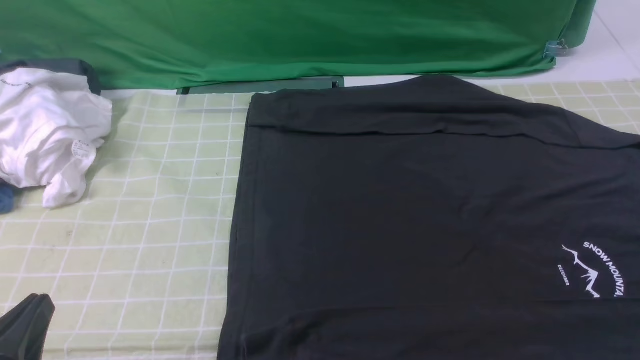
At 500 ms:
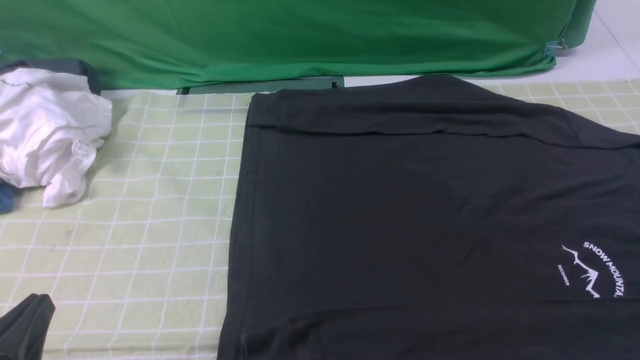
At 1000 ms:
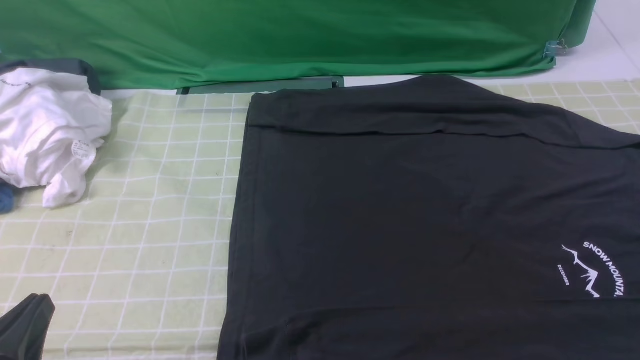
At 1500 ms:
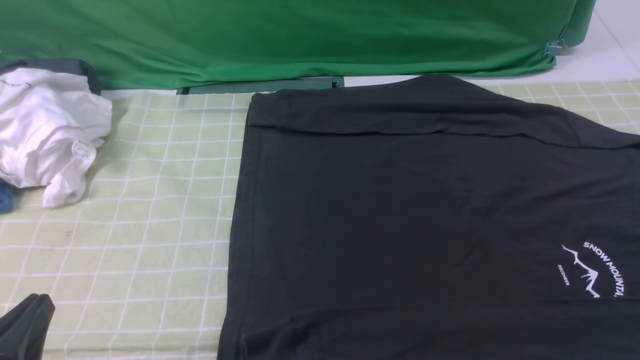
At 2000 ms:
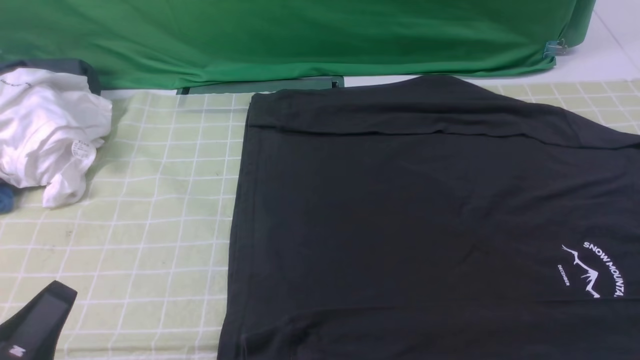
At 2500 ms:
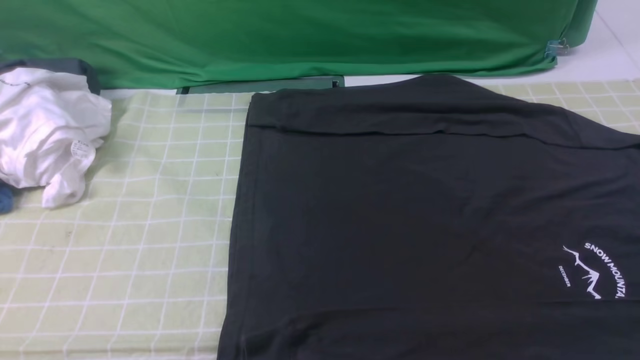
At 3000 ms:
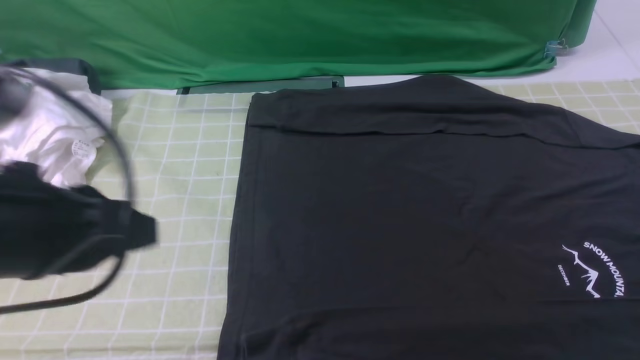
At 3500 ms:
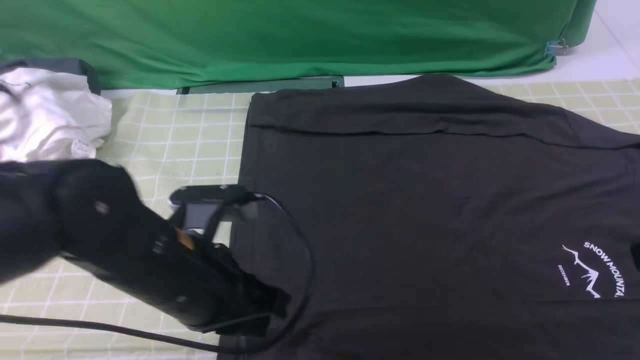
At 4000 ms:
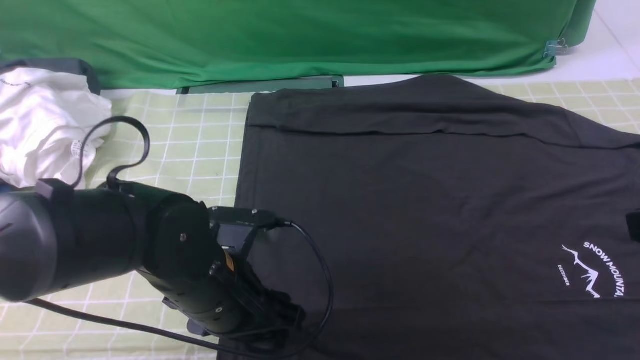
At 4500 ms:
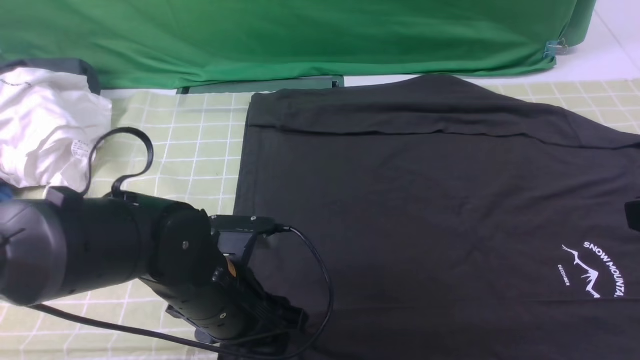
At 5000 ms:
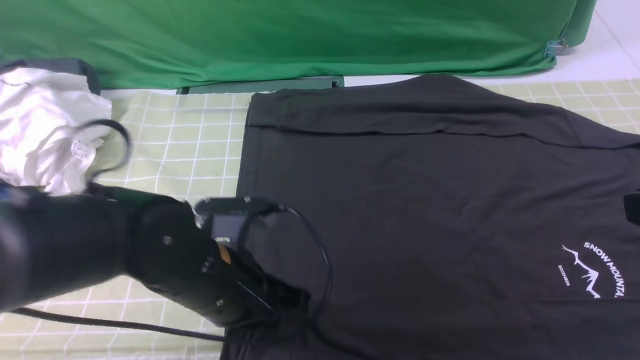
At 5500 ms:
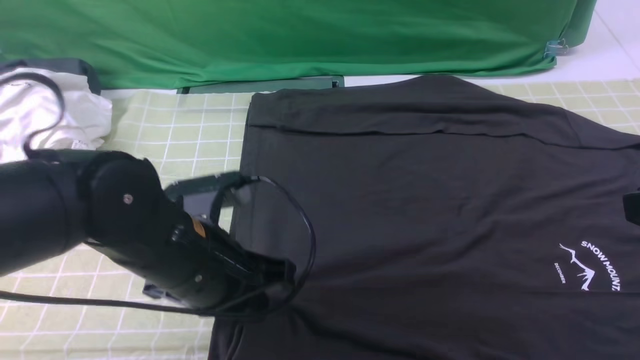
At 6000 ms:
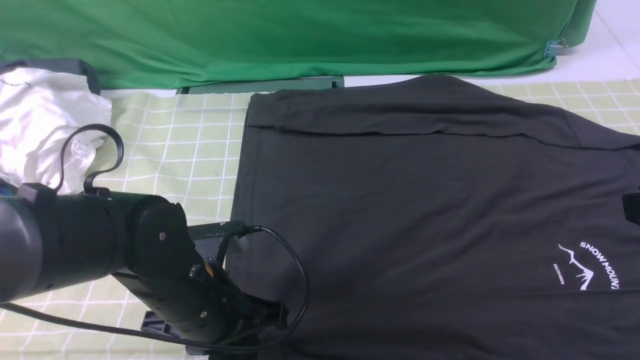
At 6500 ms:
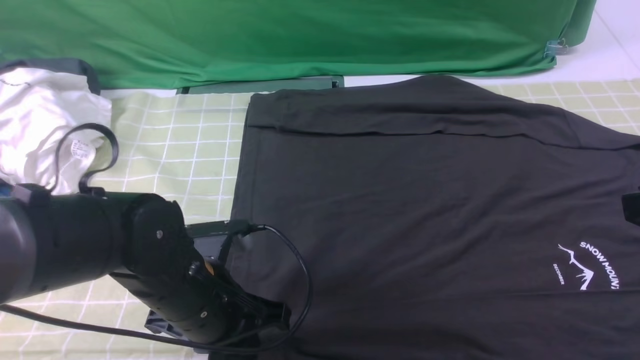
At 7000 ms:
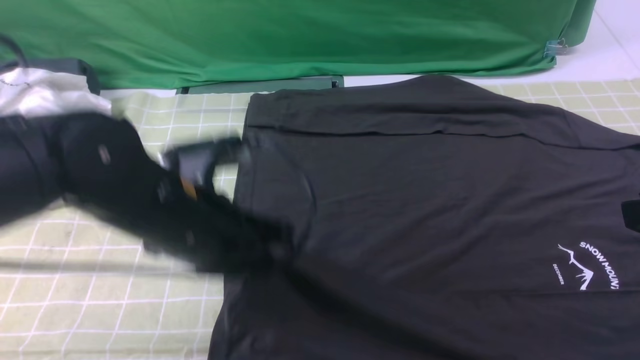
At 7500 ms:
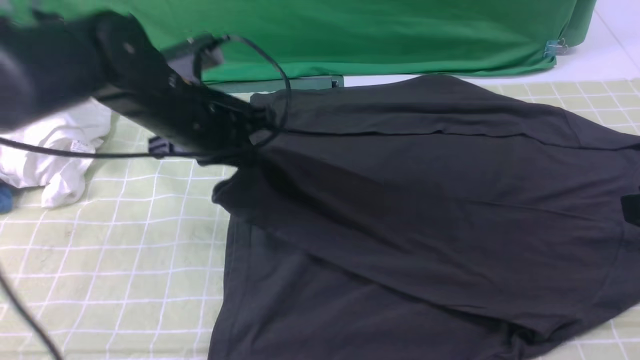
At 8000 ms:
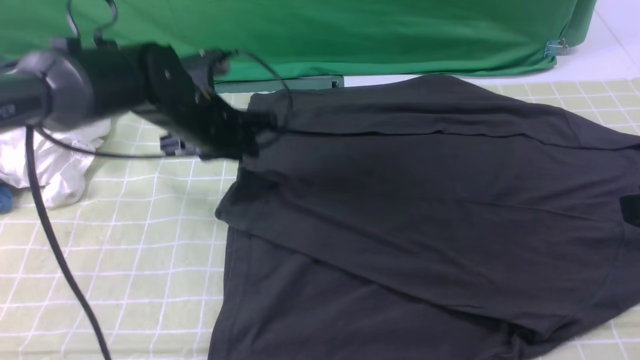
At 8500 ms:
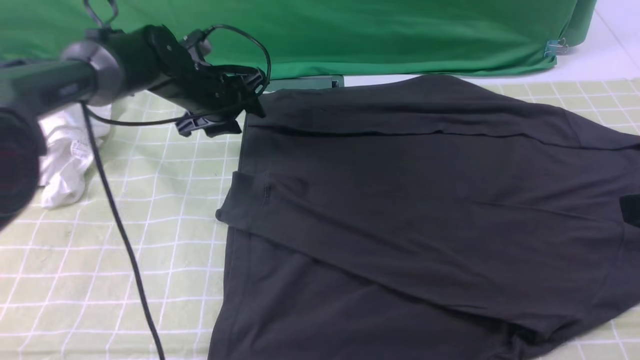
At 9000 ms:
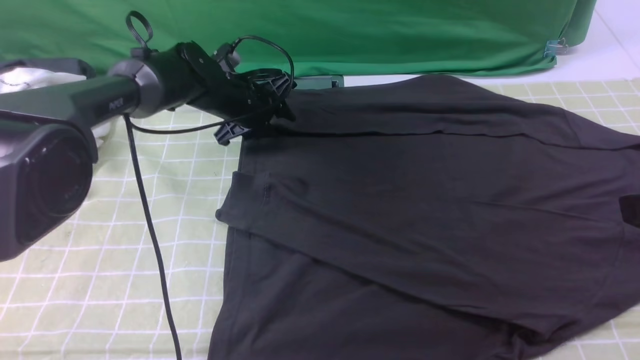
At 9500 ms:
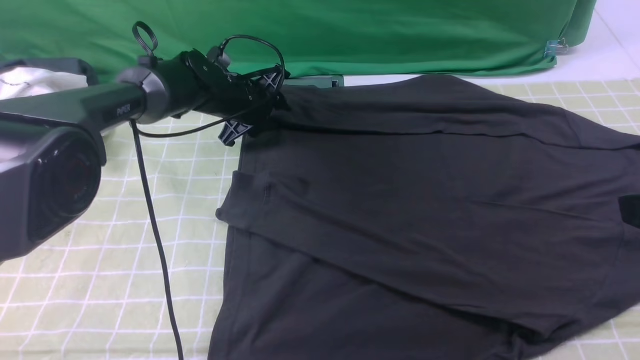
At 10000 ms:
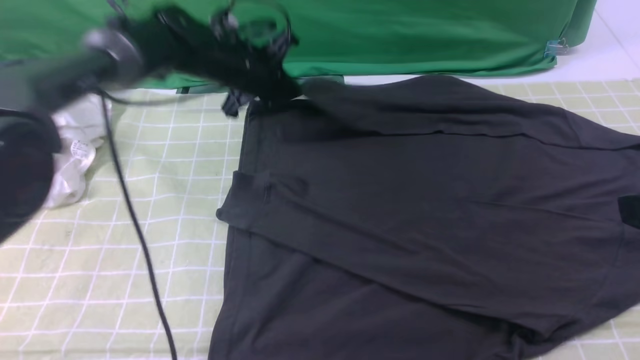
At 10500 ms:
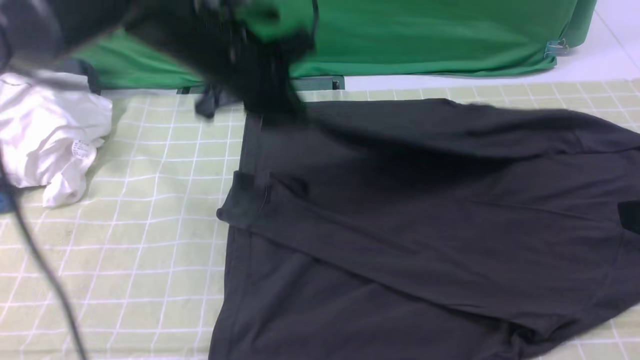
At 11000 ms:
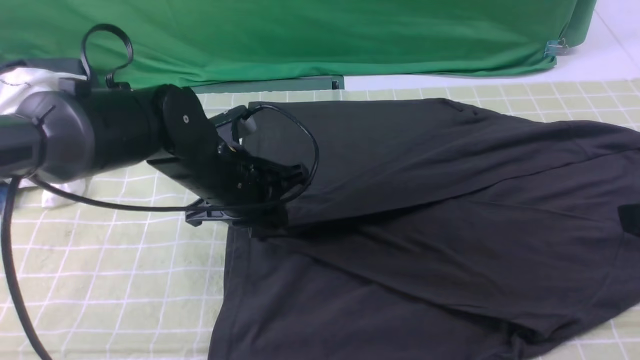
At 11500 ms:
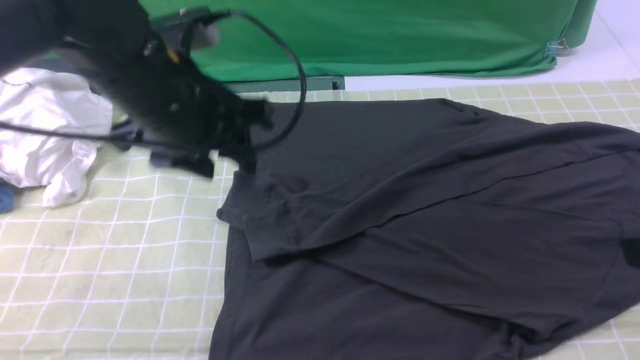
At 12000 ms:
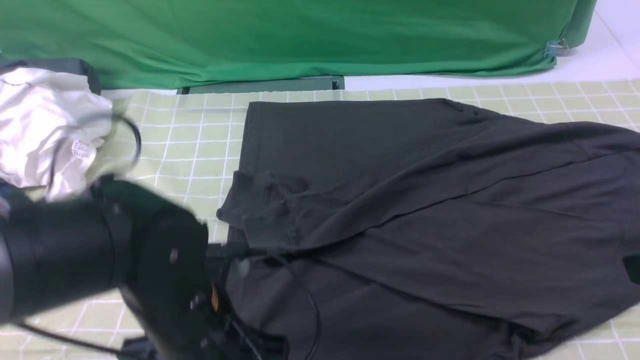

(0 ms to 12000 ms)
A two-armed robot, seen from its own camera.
Step, 0 ms - 4500 ms: use the left arm to clamp the cuff closest to it.
Step, 5000 ms - 8000 ms: use the left arm to drag and place the cuff at the centered position on the left edge of the fabric.
Step, 8500 ms - 9500 ms: use the left arm to clamp the cuff farthest from it.
Step, 10000 ms - 11000 ms: use the left arm to drag and drop the cuff onto the cuff closest to the left arm.
2000 ms - 4000 ms: The right gripper shifts approximately 15 cm upward and forward. Meanwhile the left gripper goes about 20 cm forward and to the right, and opens up.
4000 ms - 6000 ms: The left gripper closes up.
6000 ms - 8000 ms: The left gripper travels forward by roughly 20 cm.
8000 ms - 10000 ms: The left gripper shifts about 10 cm forward, and closes its fingers.
10000 ms - 12000 ms: The left gripper travels backward by approximately 30 cm, and opens up.

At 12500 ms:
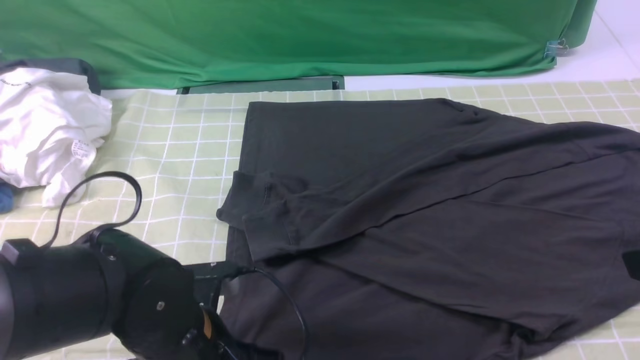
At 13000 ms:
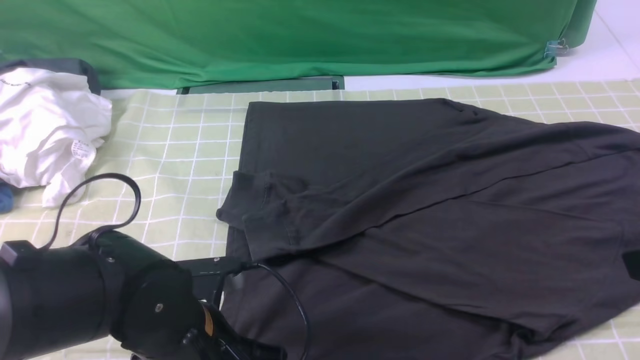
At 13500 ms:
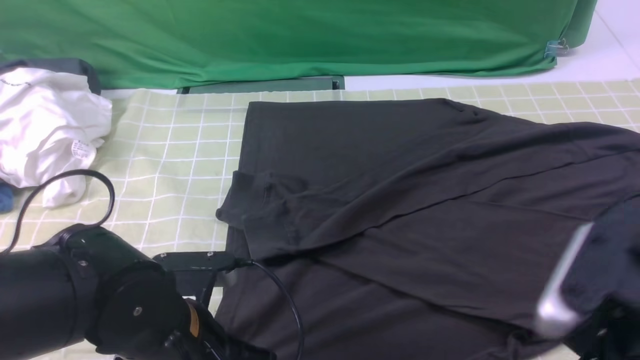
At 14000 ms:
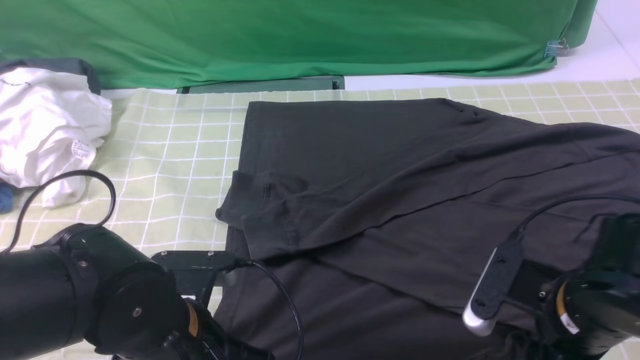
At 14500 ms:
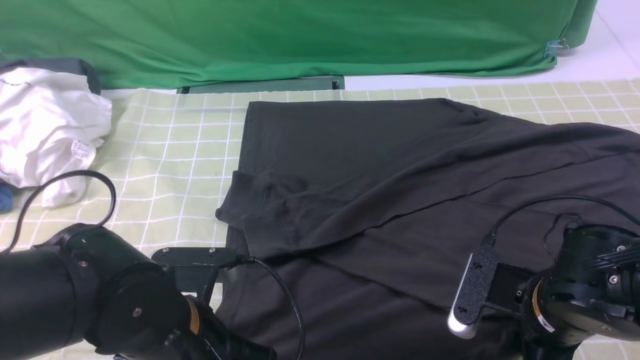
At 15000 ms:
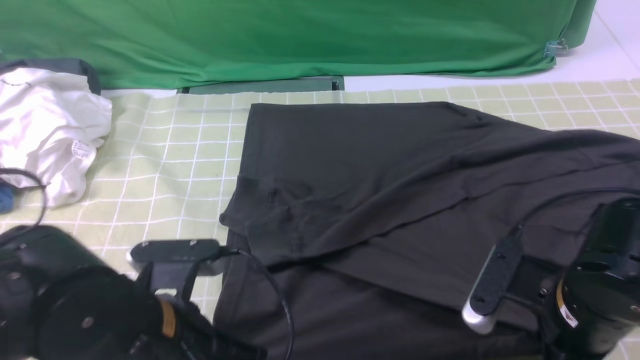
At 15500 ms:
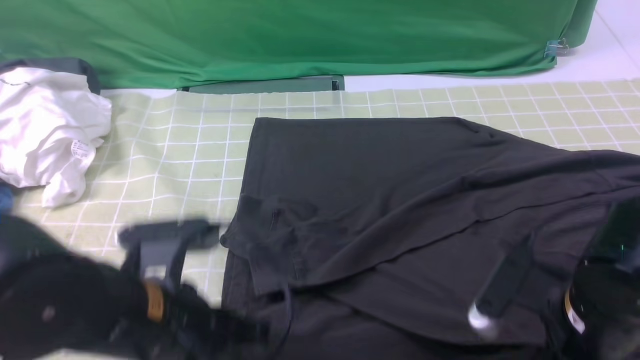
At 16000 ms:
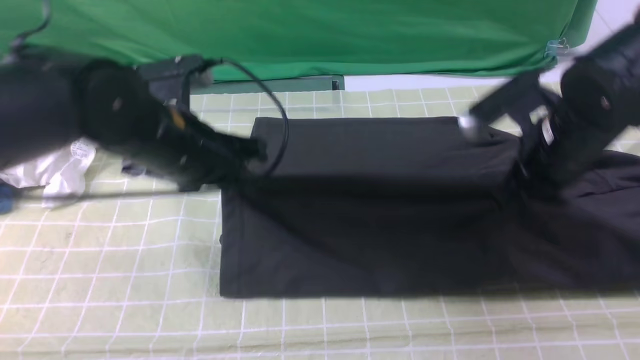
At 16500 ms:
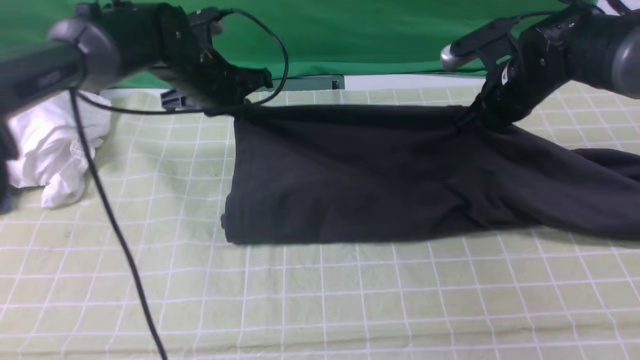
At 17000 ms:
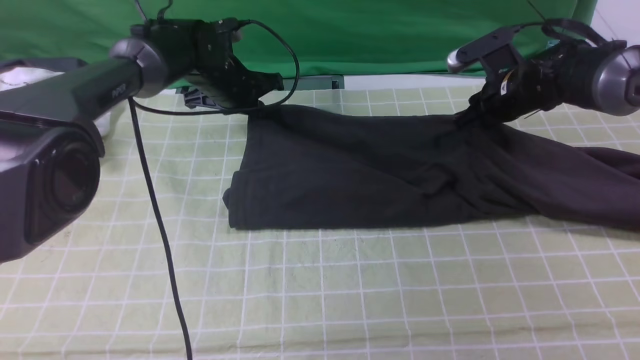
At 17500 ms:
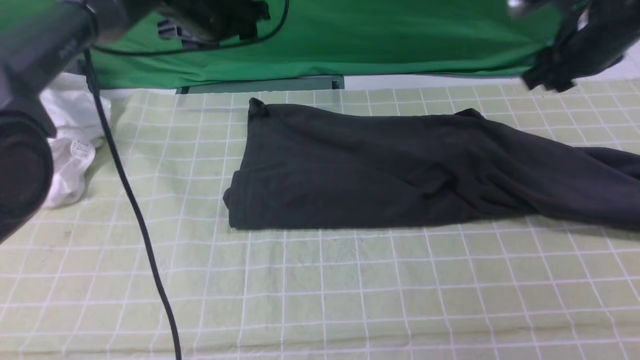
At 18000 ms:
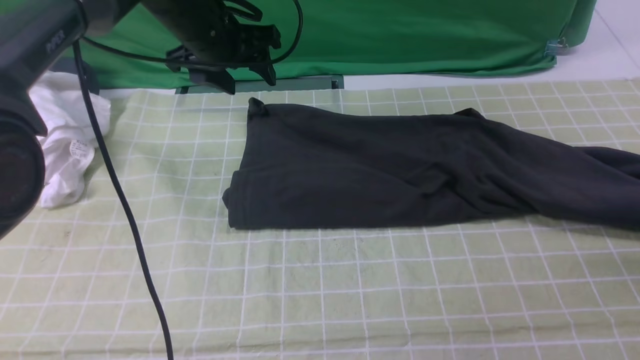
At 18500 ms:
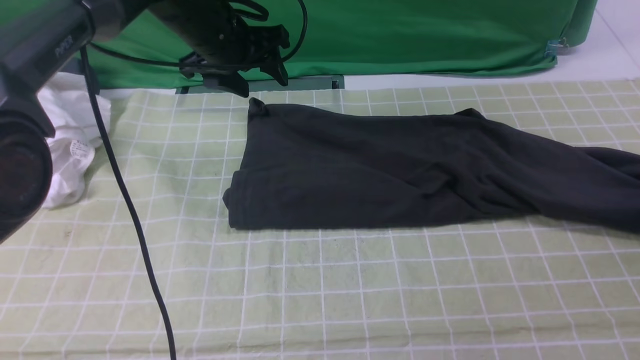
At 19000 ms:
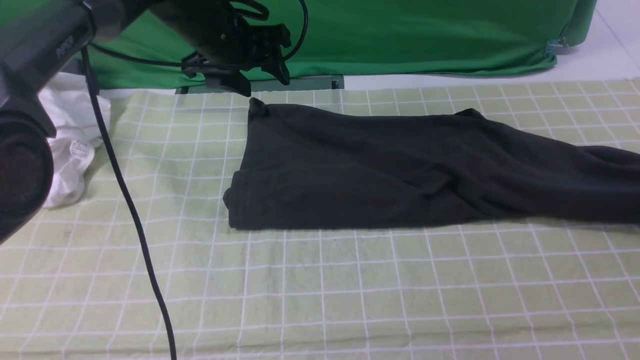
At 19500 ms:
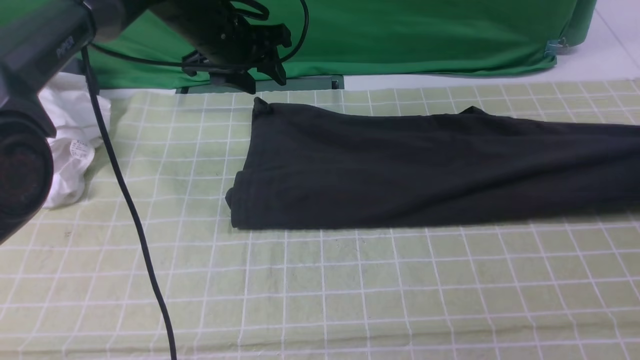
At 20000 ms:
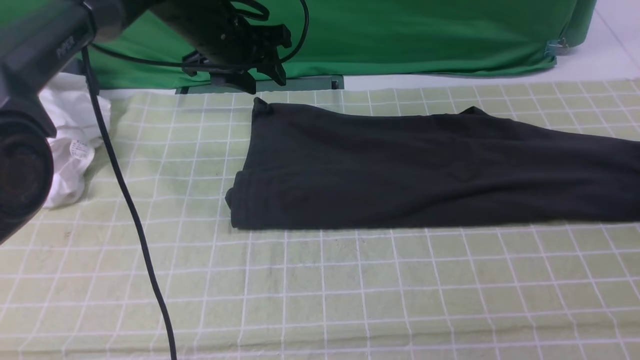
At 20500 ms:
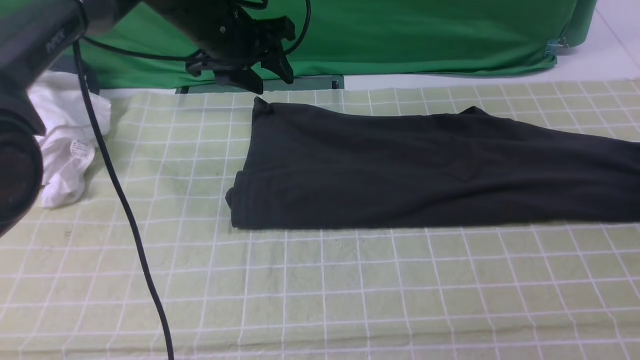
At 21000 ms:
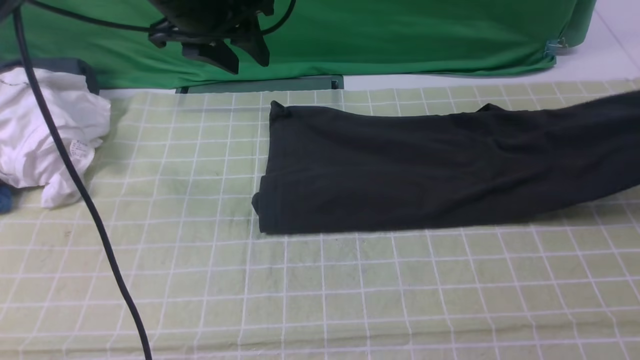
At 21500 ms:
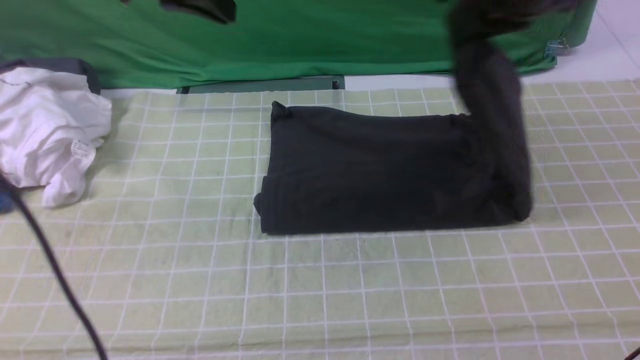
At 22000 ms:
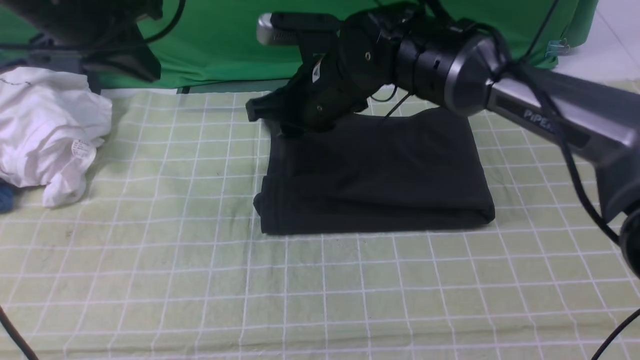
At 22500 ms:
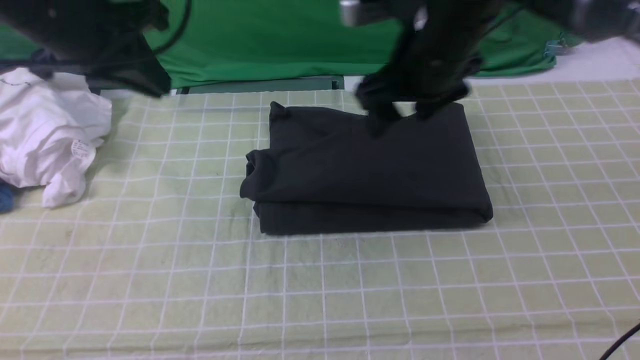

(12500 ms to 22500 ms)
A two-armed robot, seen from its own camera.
Step, 12500 ms - 14500 ms: use both arms simultaneously to clamp the lower edge of the clothing fabric.
Step, 15000 ms - 17000 ms: use both arms to drag the lower edge of the fabric forward and fold it over the upper edge.
Step, 17500 ms - 20500 ms: use the right arm to clamp the right edge of the fabric.
Step, 21000 ms - 22000 ms: use the right arm to drag the right edge of the fabric to the left and folds it over the left edge.
12500 ms - 14500 ms: The left gripper closes. Meanwhile the right gripper heads downward and to the left, covering approximately 20 cm, and opens, then closes once more.
14500 ms - 16500 ms: The grippers both shift forward by roughly 25 cm. The right gripper closes up.
16500 ms - 18500 ms: The left gripper moves about 5 cm, and opens. The right gripper is displaced to the right by some 25 cm, and opens.
18500 ms - 20500 ms: The right gripper is displaced forward by approximately 5 cm, and opens and closes again.
20500 ms - 22500 ms: The right gripper is displaced to the left by approximately 40 cm, and opens its fingers. The left gripper travels backward and to the left by about 15 cm, and closes its fingers.
